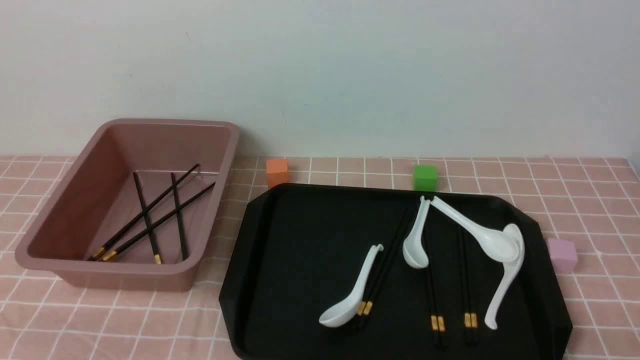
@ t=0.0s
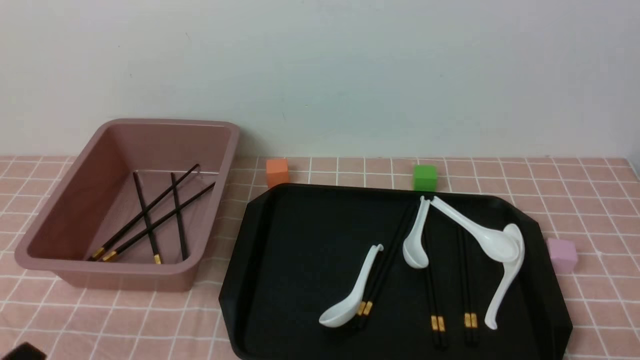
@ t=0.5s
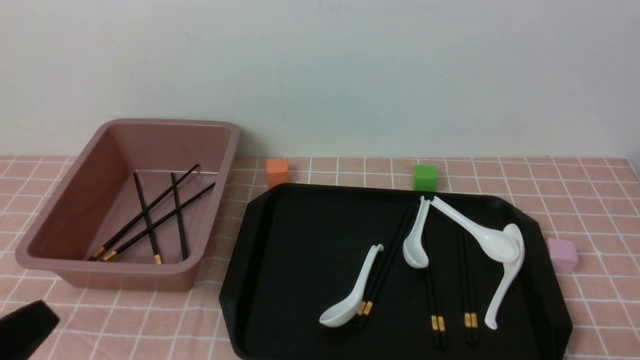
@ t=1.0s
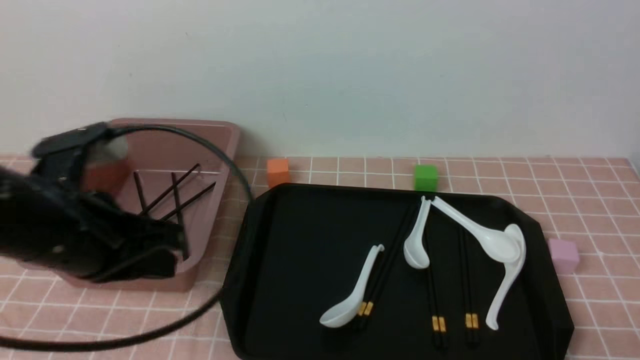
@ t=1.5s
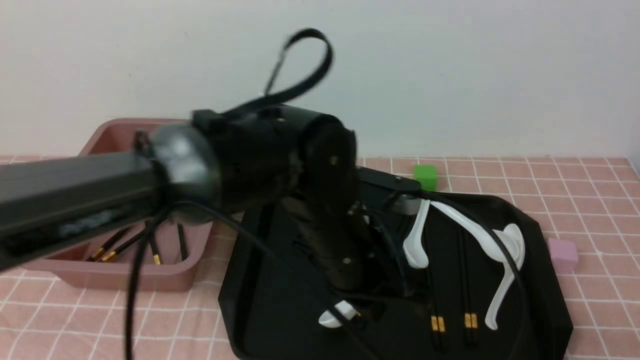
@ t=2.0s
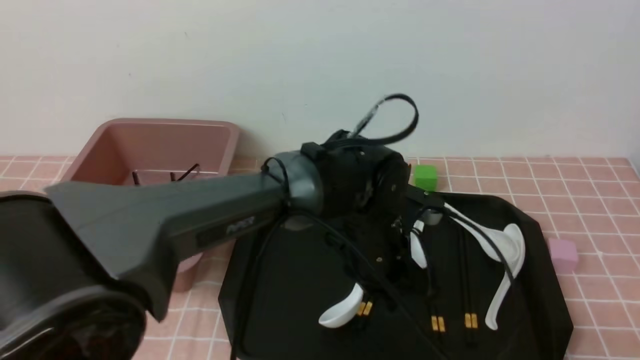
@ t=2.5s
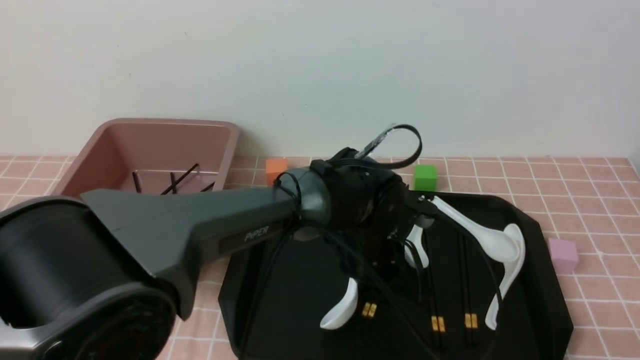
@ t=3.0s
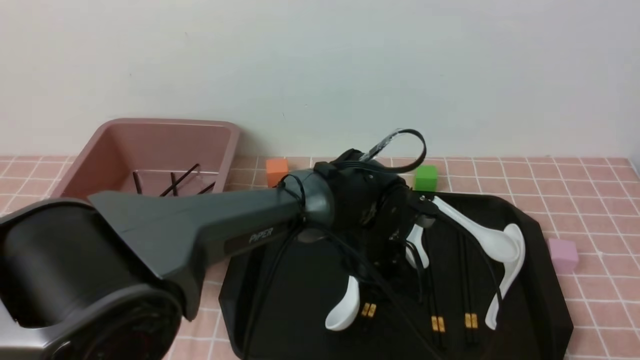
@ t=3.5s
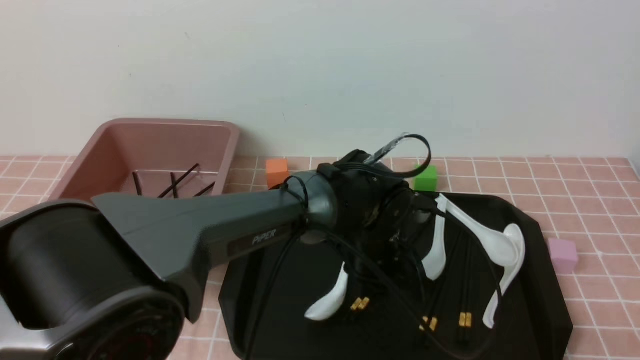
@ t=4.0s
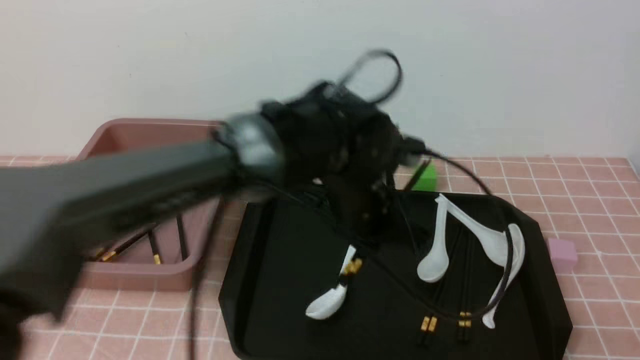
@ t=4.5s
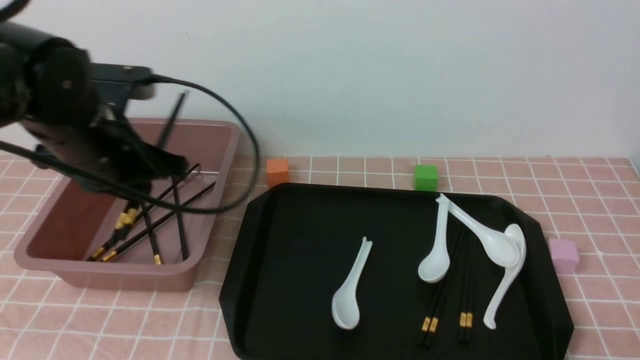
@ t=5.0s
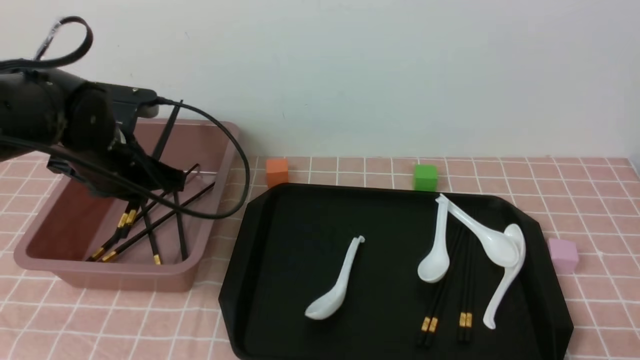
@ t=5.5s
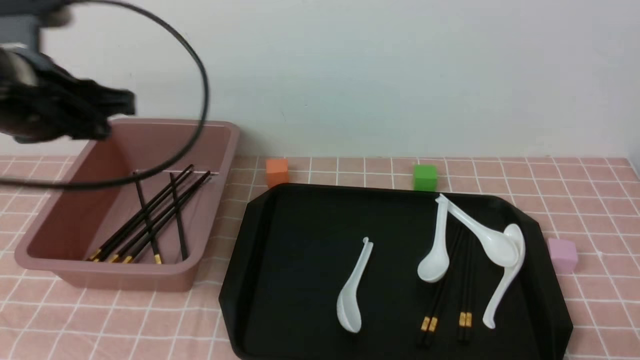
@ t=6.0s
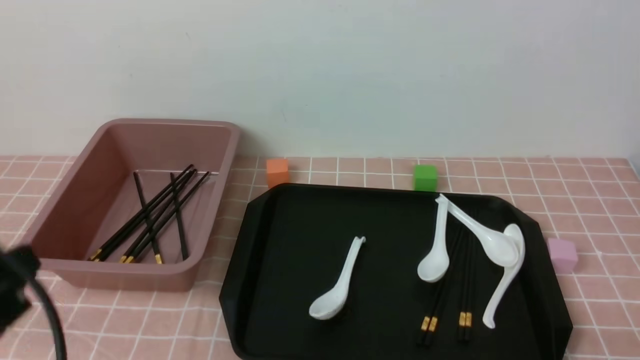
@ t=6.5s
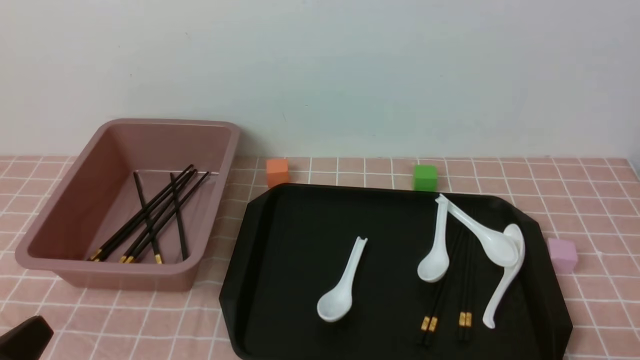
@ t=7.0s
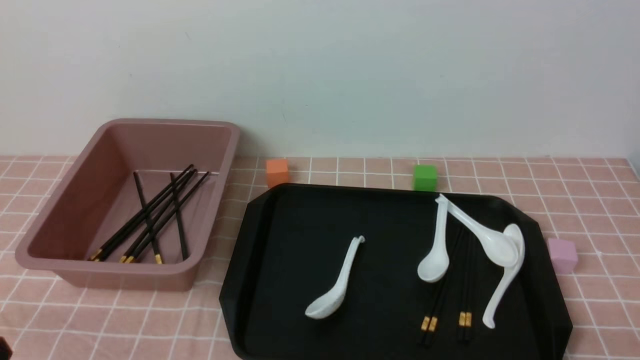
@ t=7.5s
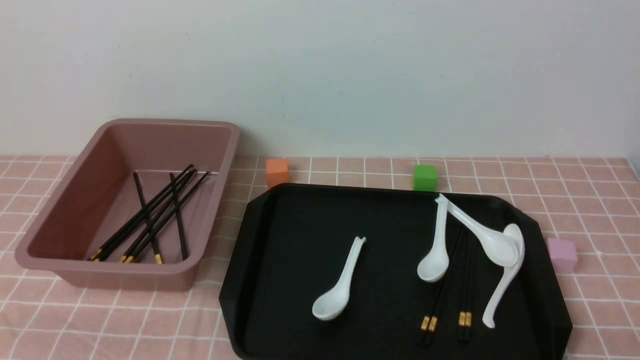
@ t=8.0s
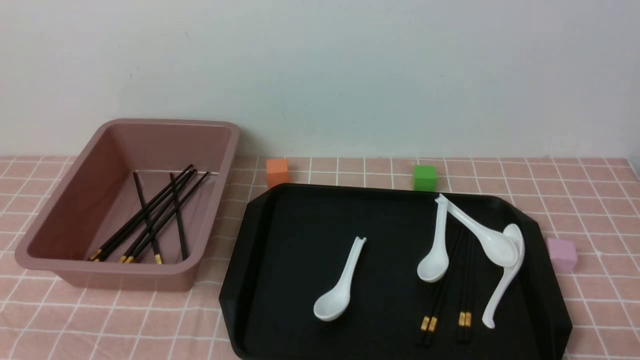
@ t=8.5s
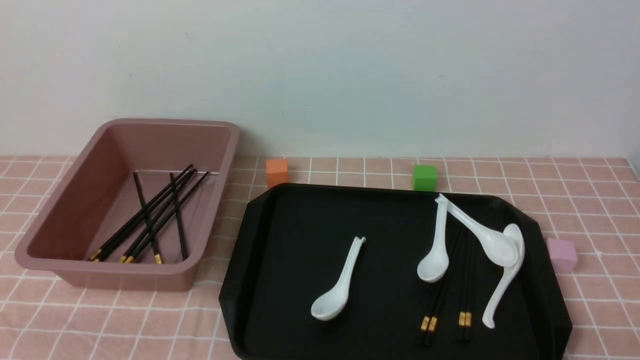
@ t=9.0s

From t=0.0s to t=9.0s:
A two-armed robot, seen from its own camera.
Step, from t=0.0s to t=4.0s: use the left arm to grab a pair of chopsticks.
Step, from t=4.5s to t=6.0s: use the left arm to put the chopsticks into the lunch box.
From t=0.0s to t=2.0s: The left gripper is displaced to the right and forward by roughly 35 cm.
From t=2.0s to t=4.5s: The left gripper moves about 10 cm downward and comes back, and opens, then closes once more.
From t=4.5s to t=7.0s: The left gripper travels to the left and backward by some 35 cm, and closes up.
From t=7.0s to t=9.0s: The left gripper moves approximately 5 cm.

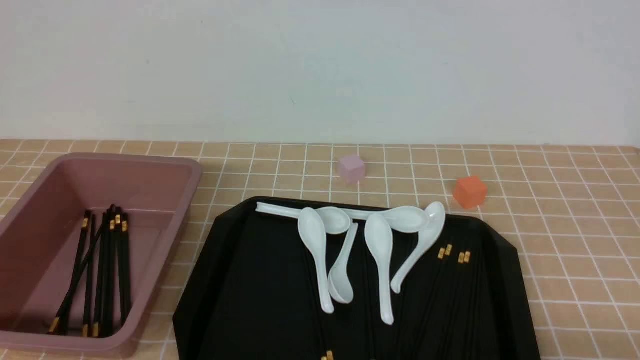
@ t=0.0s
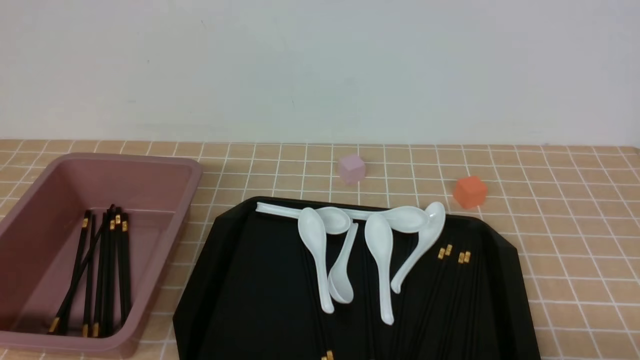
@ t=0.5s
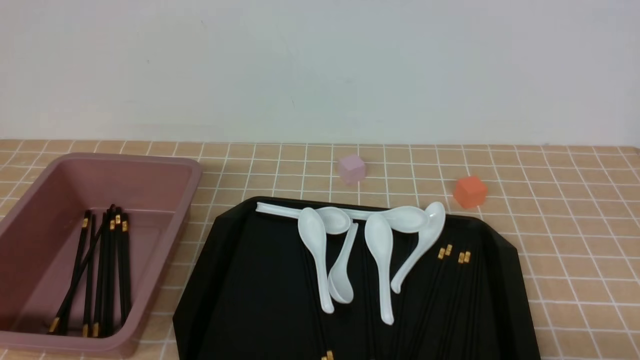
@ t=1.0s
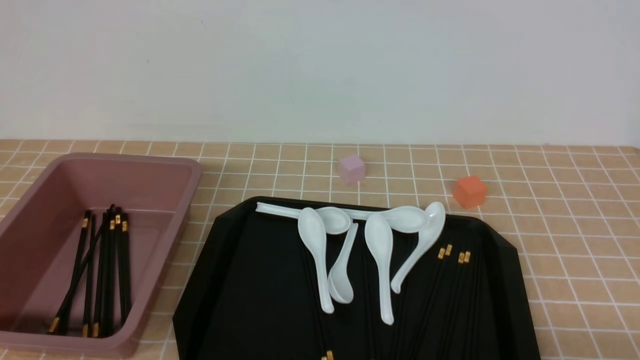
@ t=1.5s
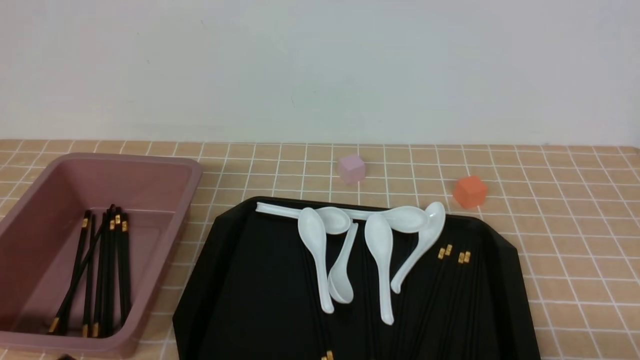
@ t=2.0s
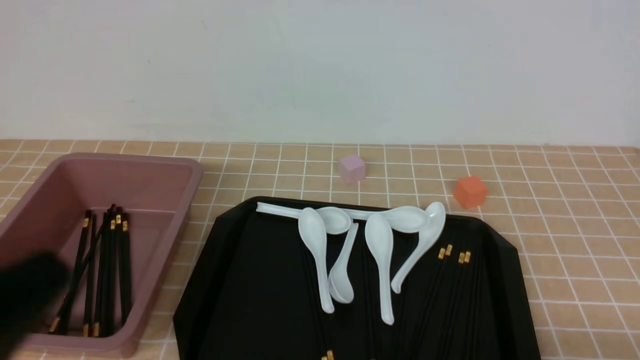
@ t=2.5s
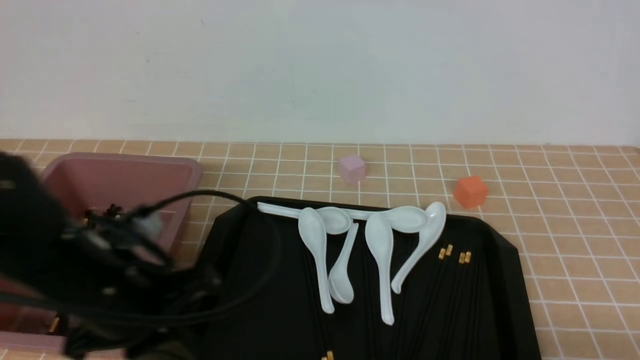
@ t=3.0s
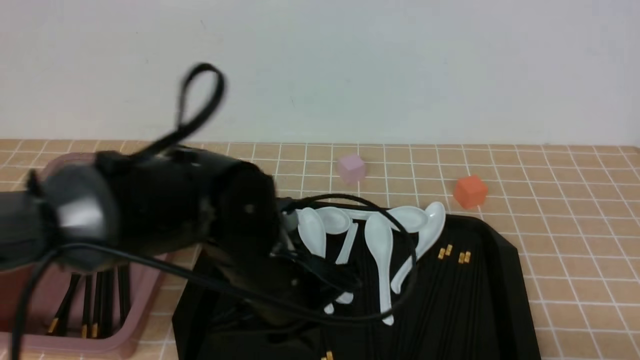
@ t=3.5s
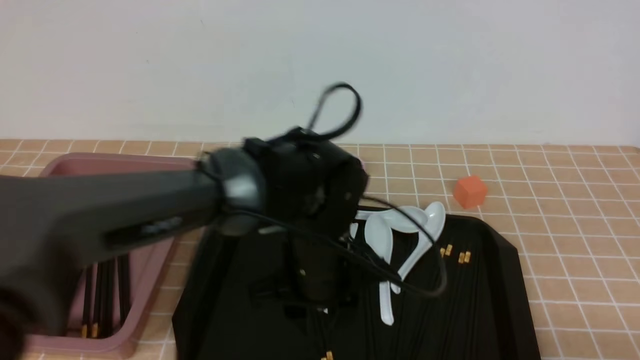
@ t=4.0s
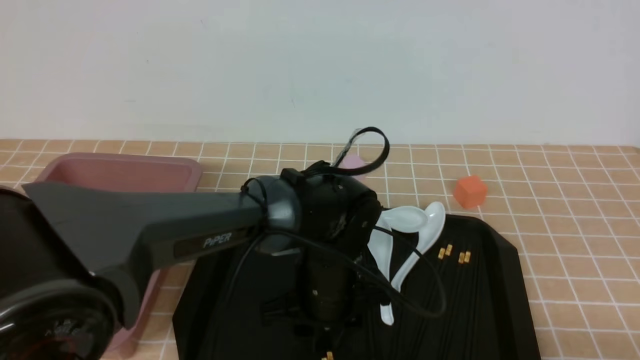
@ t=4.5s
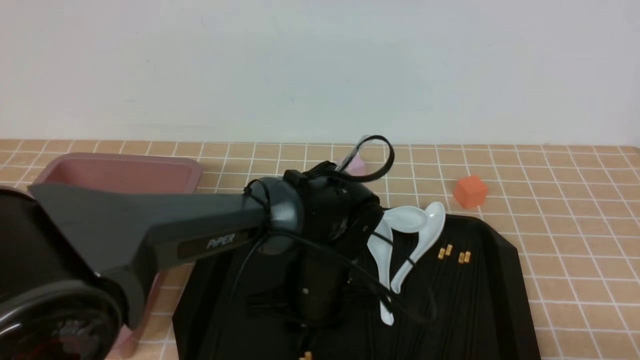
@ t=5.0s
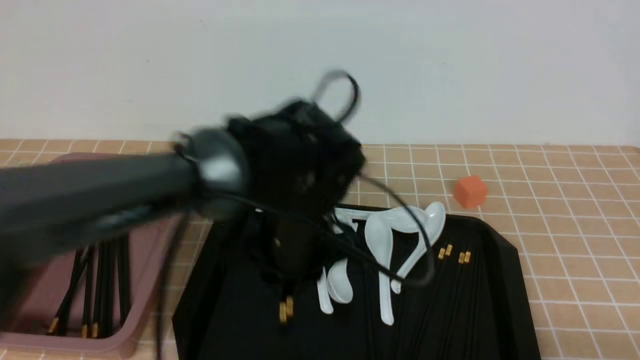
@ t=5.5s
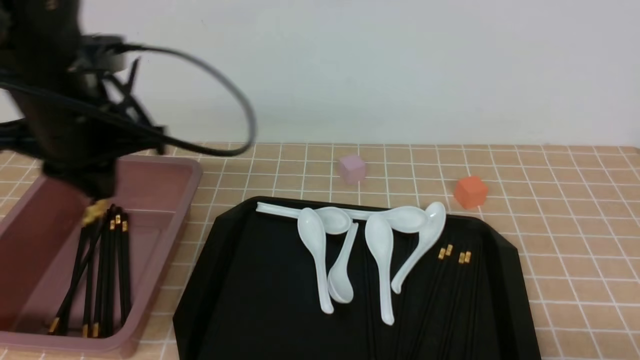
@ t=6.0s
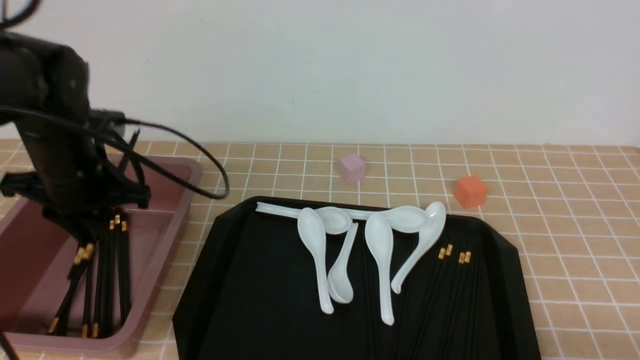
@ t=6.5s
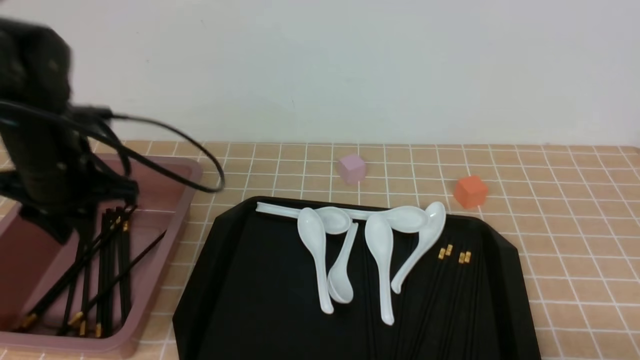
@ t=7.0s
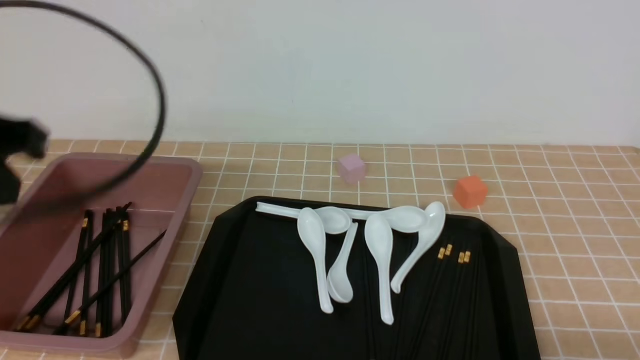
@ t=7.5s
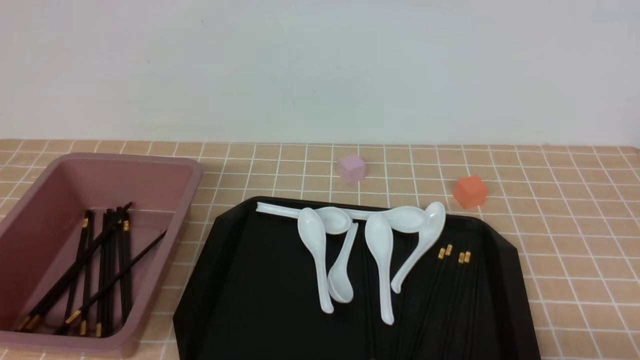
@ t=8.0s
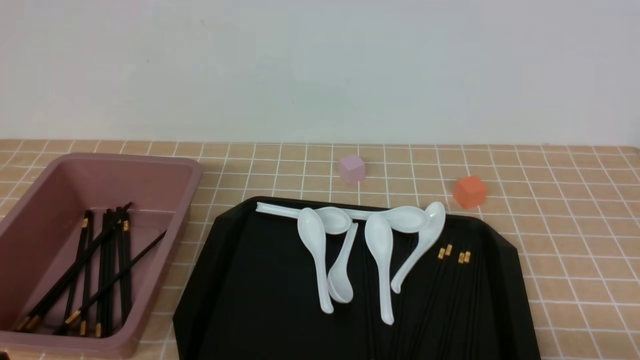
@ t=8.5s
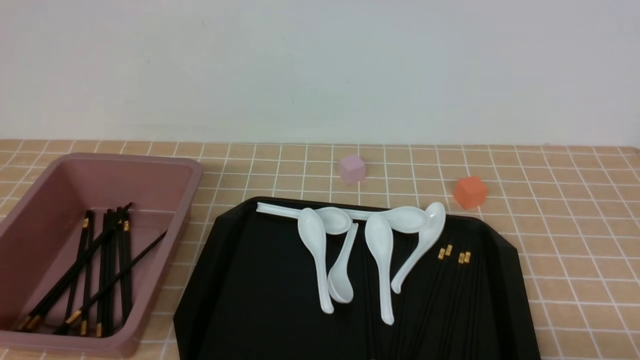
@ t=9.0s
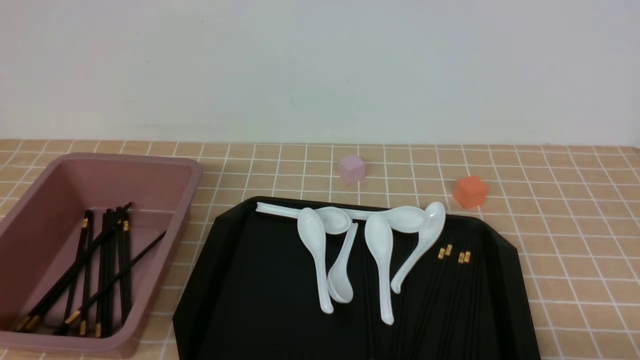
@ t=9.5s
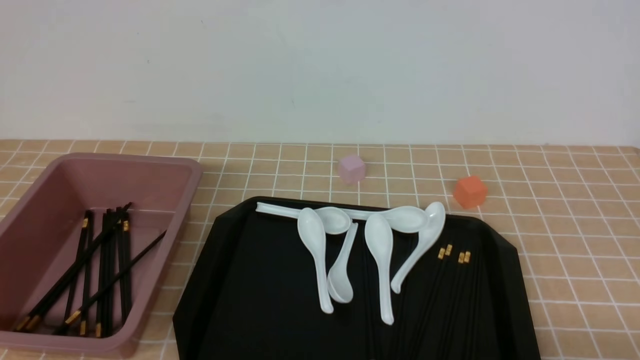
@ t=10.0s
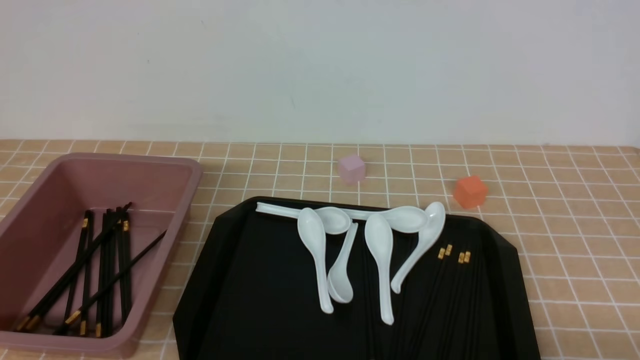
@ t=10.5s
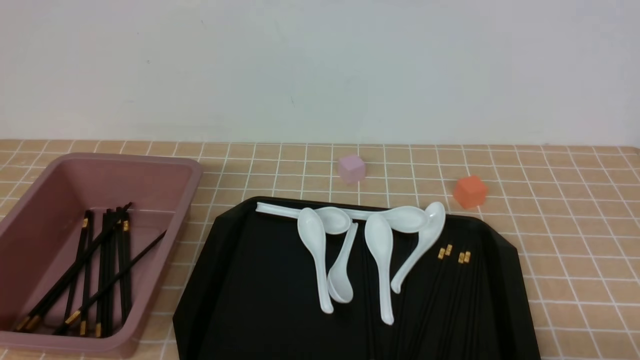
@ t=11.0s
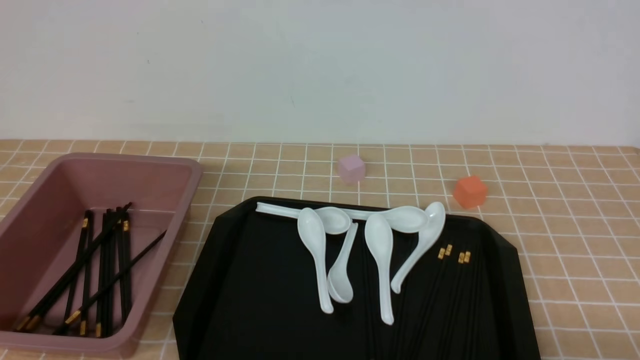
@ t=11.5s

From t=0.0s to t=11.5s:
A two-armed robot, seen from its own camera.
Step, from t=0.0s to t=5.0s: use the left arm to grab a pair of chopsticks.
Step, from t=5.5s to t=7.0s: use the left arm to put the chopsticks into the lunch box.
From t=2.0s to t=4.0s: The left gripper moves to the right and forward, about 35 cm, and opens.
From t=4.0s to t=6.0s: The left gripper goes some 25 cm to the left and upward, and closes up.
From t=6.0s to t=7.5s: The left gripper moves backward and upward, about 15 cm, and closes up.
From t=7.5s to t=9.5s: The left gripper is displaced downward and backward by roughly 25 cm.
From t=9.5s to t=11.5s: The two grippers keep their place.
